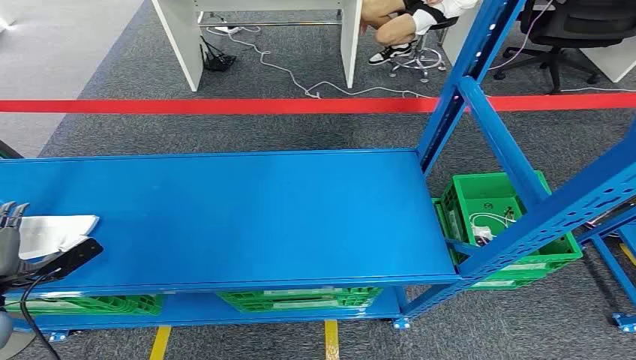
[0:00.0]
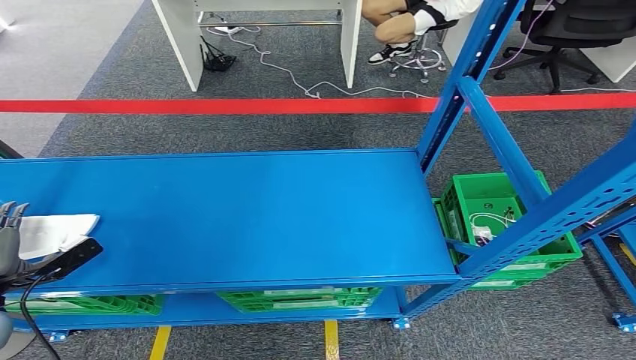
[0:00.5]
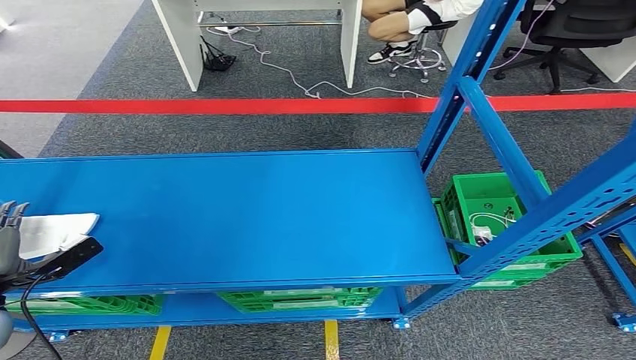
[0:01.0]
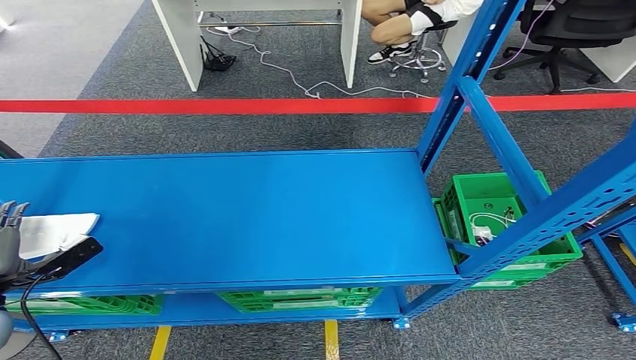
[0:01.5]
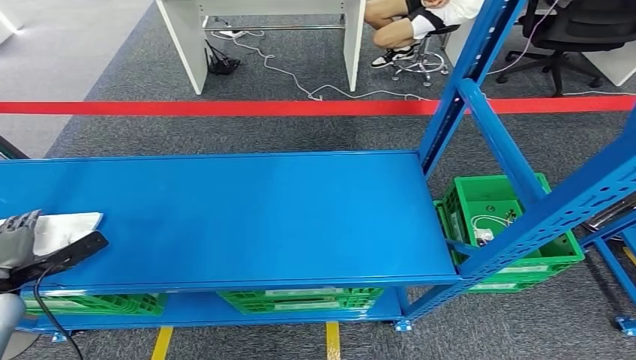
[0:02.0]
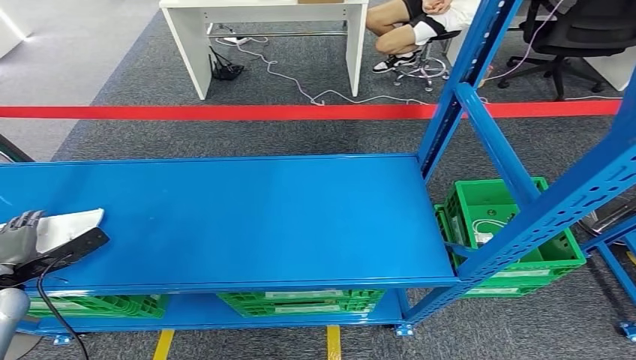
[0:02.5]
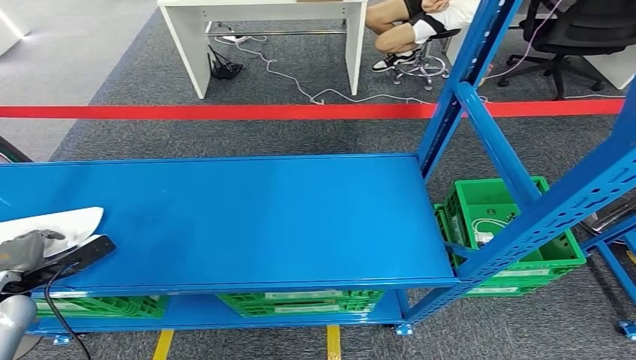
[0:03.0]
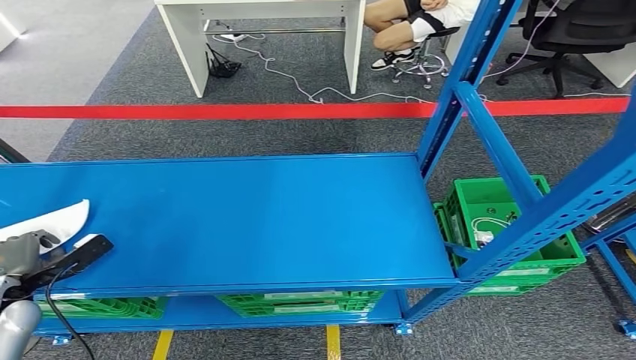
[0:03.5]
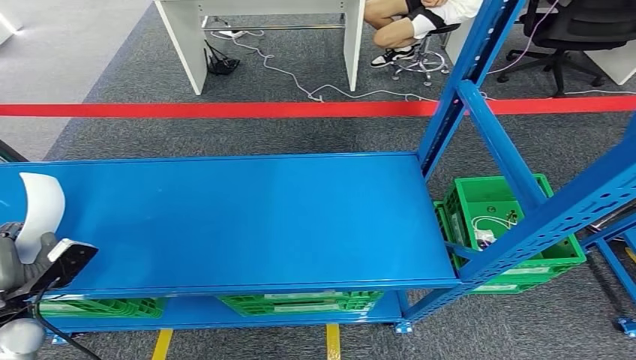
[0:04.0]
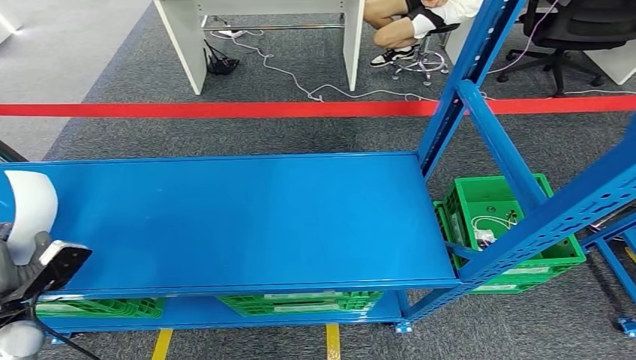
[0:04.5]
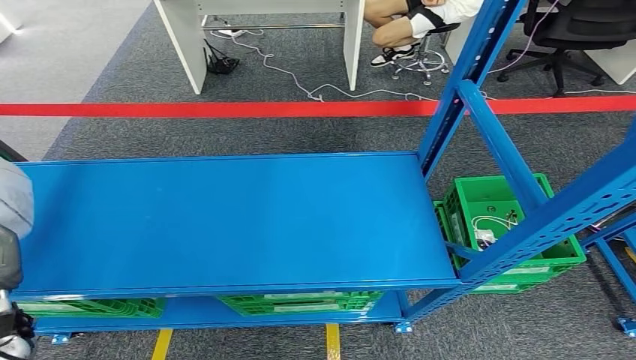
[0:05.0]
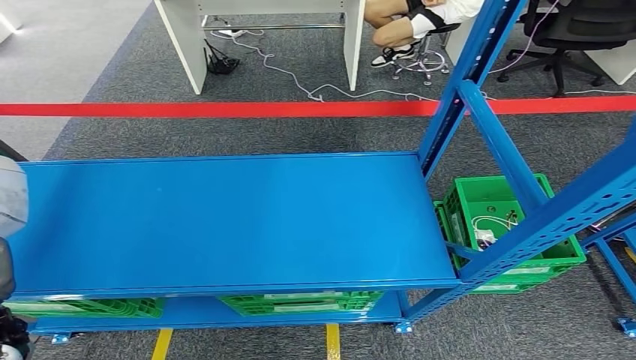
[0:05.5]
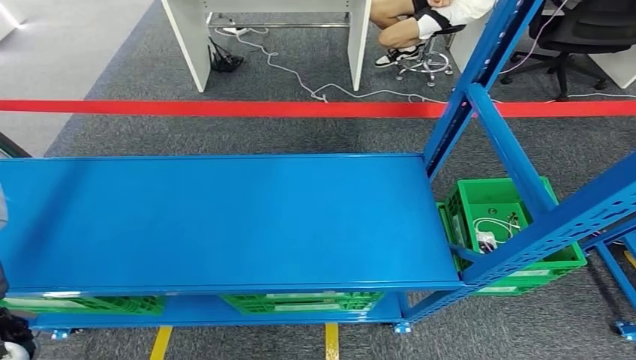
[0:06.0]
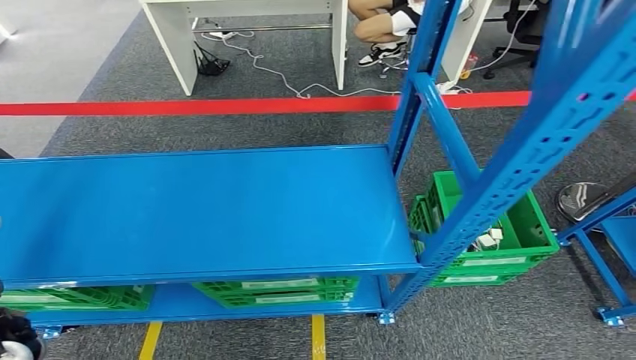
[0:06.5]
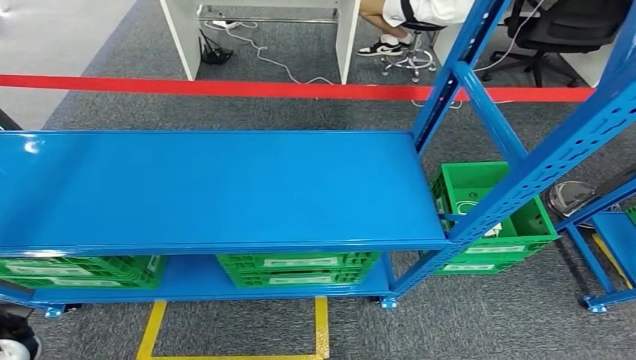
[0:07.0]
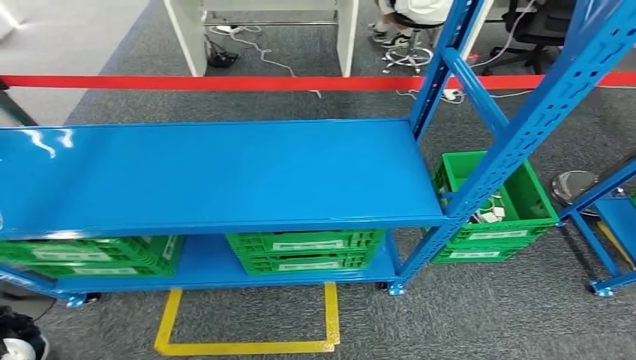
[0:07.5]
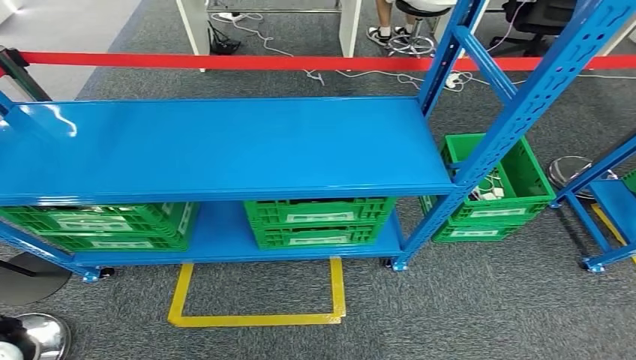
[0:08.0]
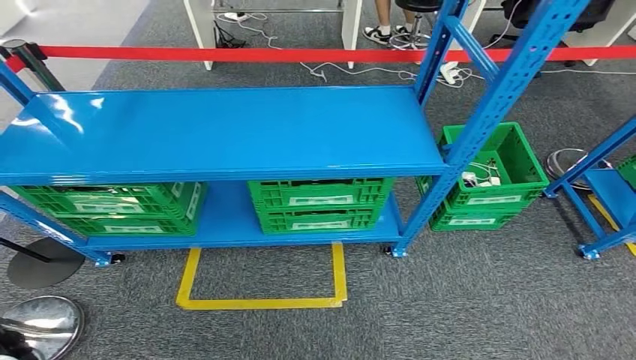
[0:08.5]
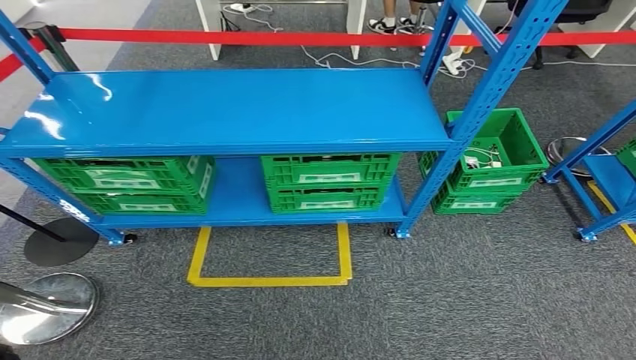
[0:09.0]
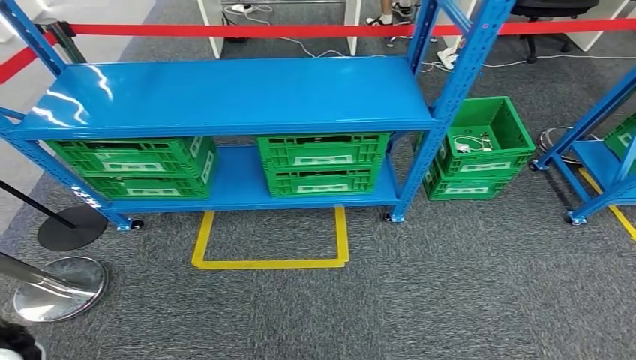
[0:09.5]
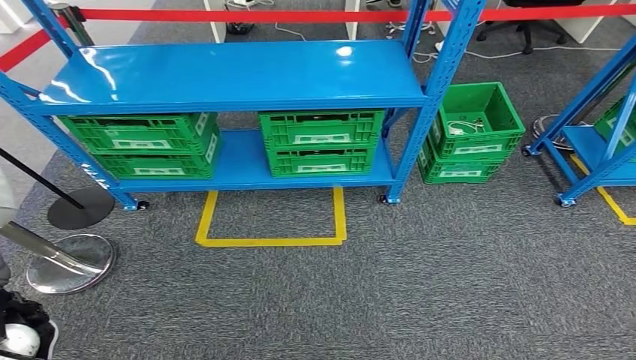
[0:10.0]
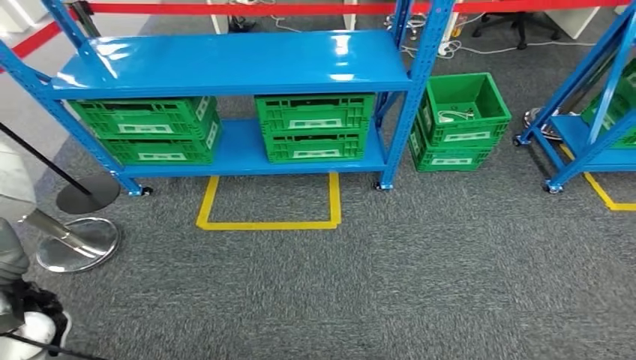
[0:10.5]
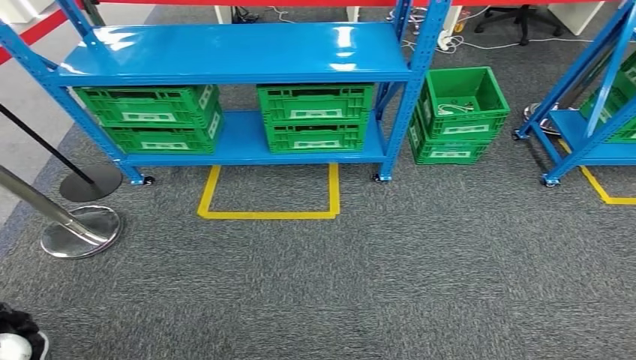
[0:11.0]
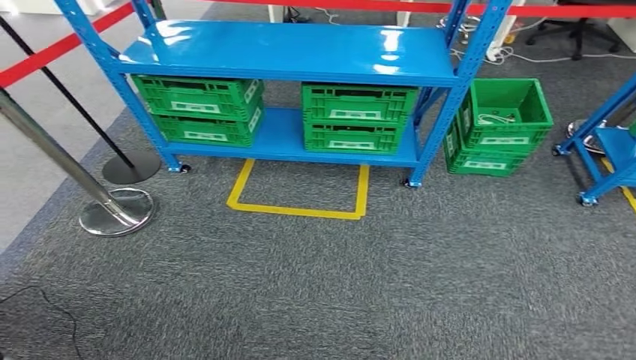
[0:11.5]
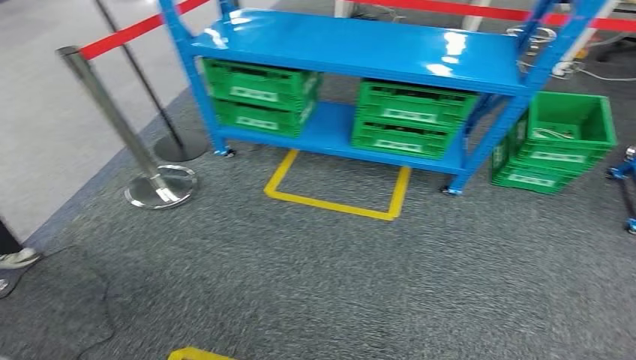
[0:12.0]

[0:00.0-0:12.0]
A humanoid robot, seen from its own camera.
Step, 0:00.0 to 0:08.0: Take small components from the rack.
0:02.0 to 0:04.0: The left hand shifts by about 5 cm.
0:04.0 to 0:06.0: The left hand is displaced upward and to the right by about 15 cm.

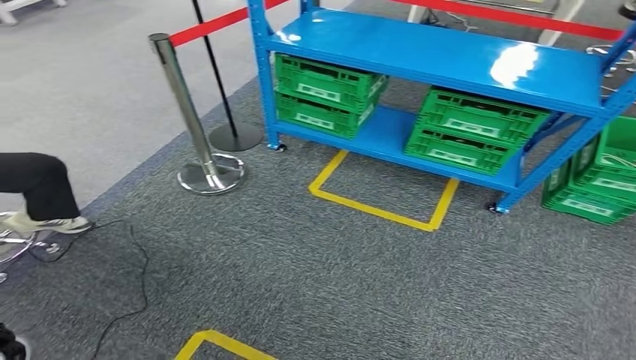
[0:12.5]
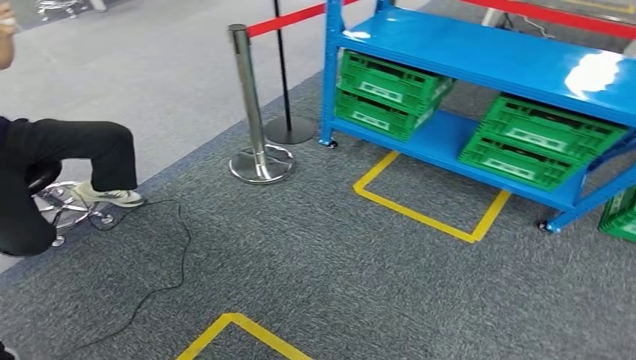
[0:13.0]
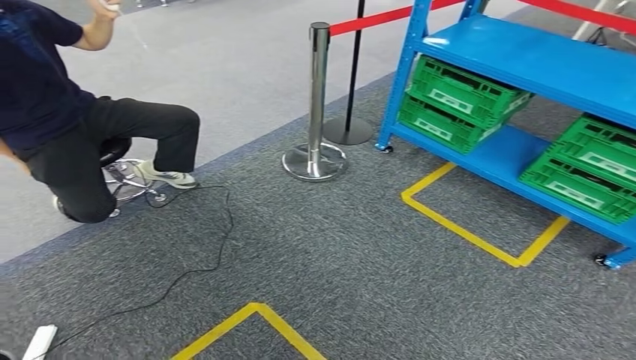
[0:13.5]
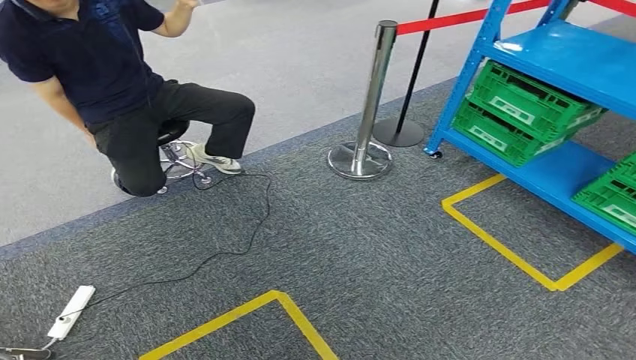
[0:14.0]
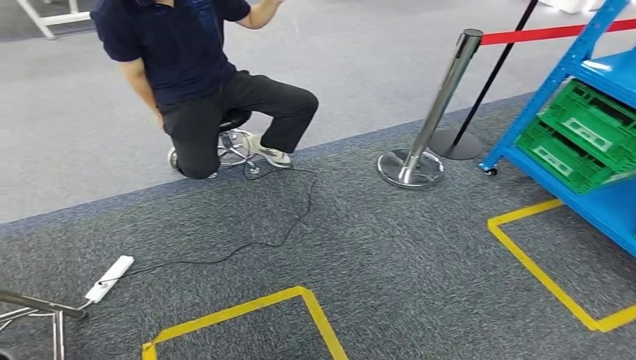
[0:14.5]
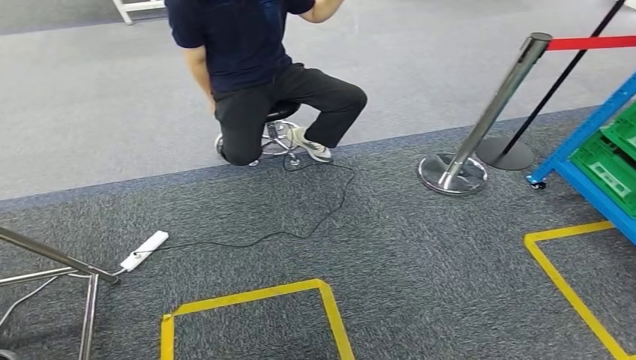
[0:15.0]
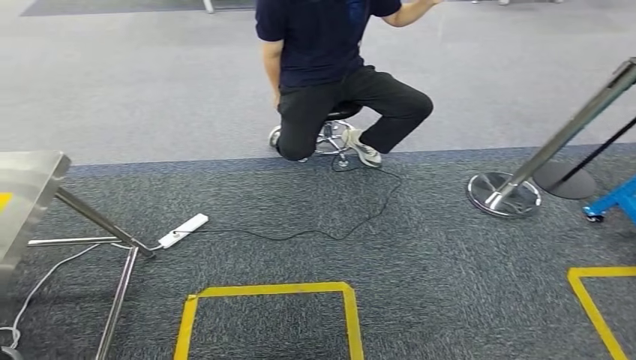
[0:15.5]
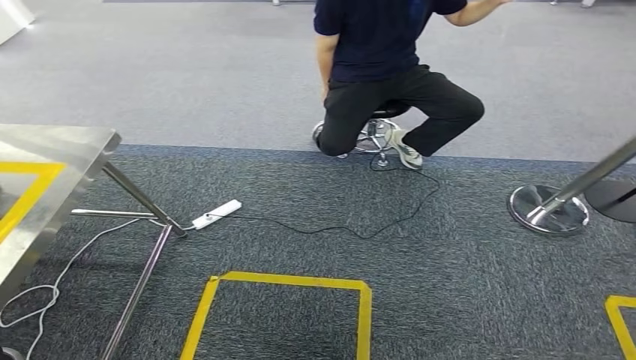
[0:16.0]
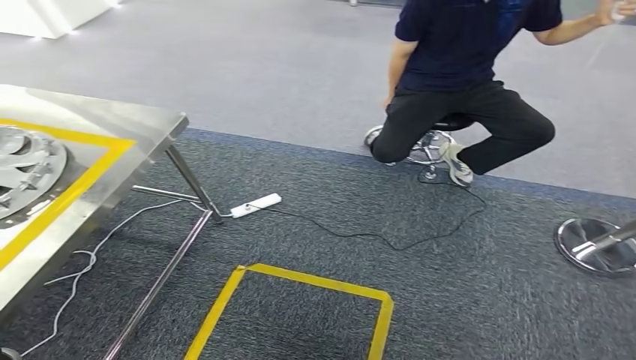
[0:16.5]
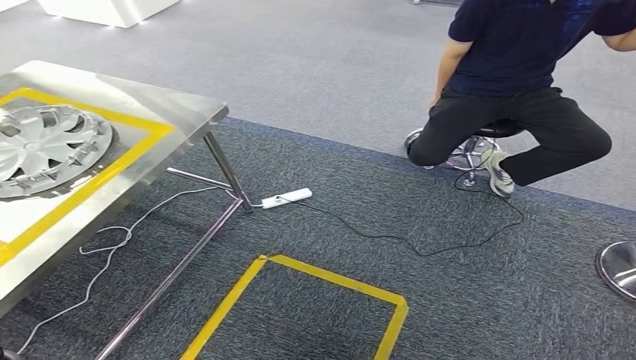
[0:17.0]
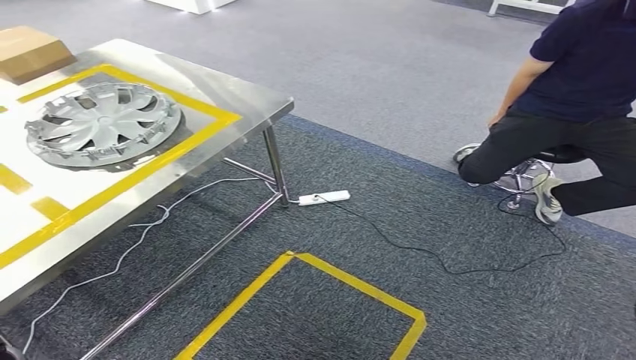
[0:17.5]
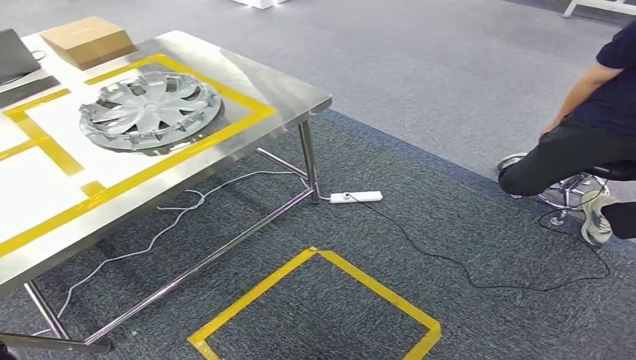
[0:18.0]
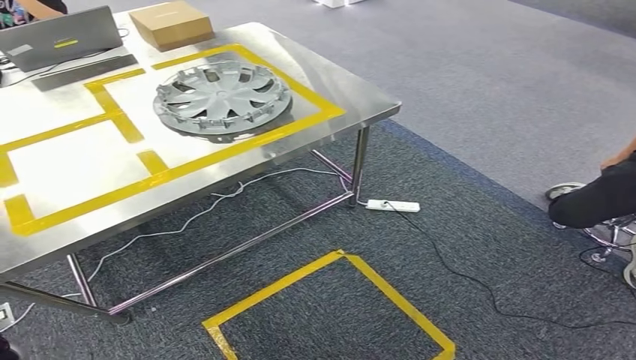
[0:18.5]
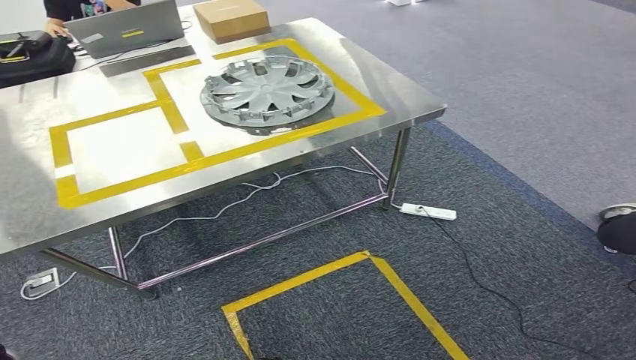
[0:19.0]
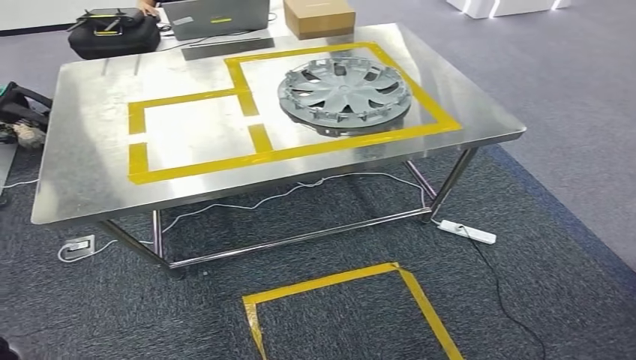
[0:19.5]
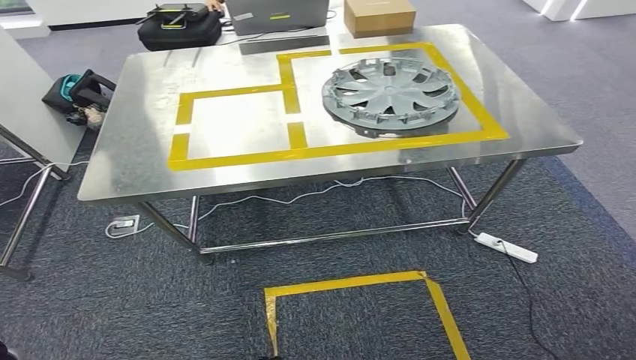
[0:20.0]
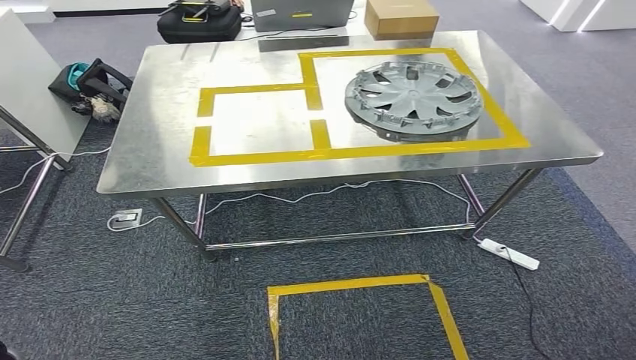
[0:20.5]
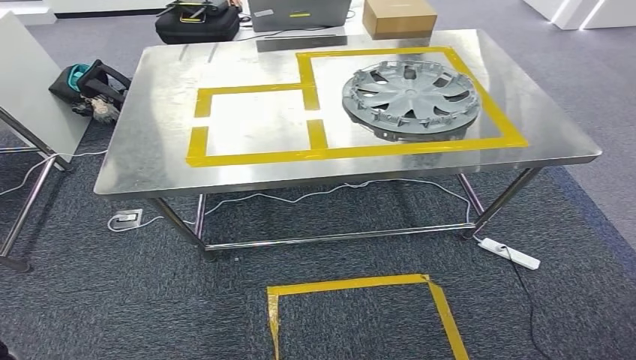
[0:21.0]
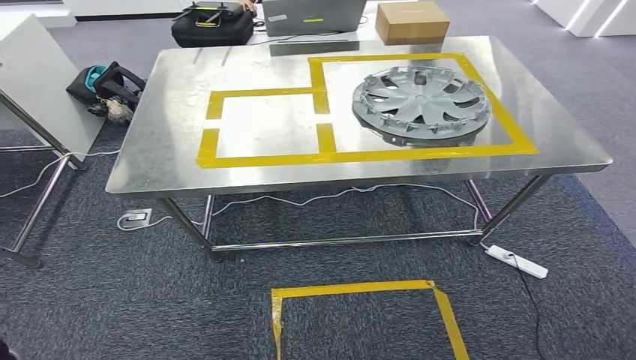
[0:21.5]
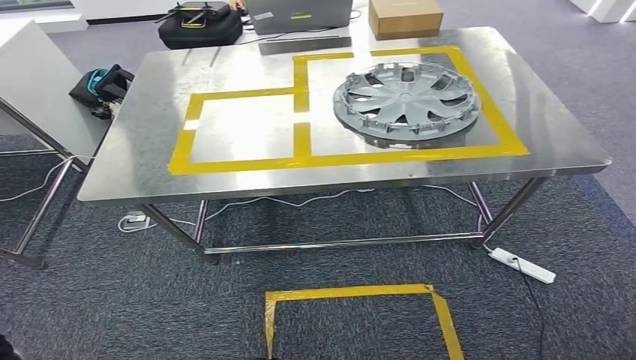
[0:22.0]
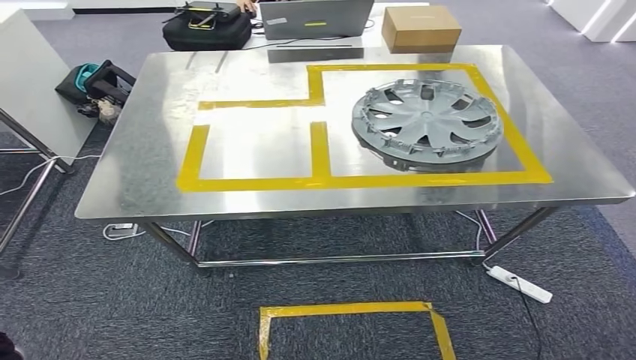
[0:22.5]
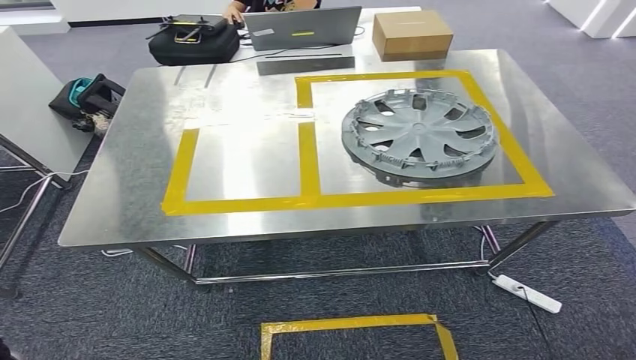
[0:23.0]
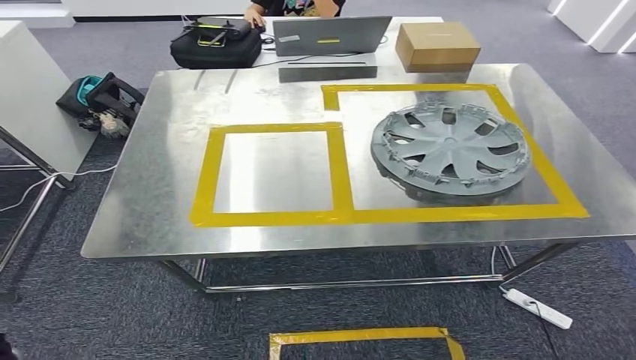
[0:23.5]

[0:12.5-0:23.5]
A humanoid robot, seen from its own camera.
Step, 0:12.5 to 0:23.0: Move the small parts to the workbench.
